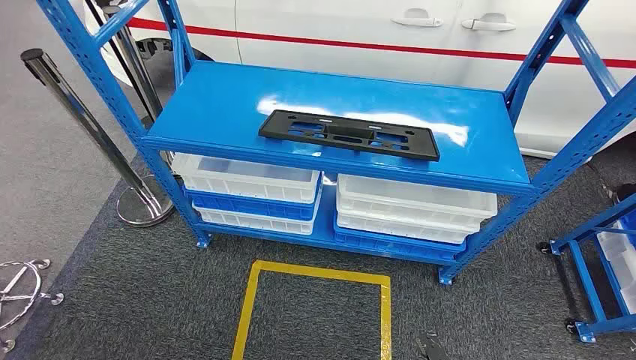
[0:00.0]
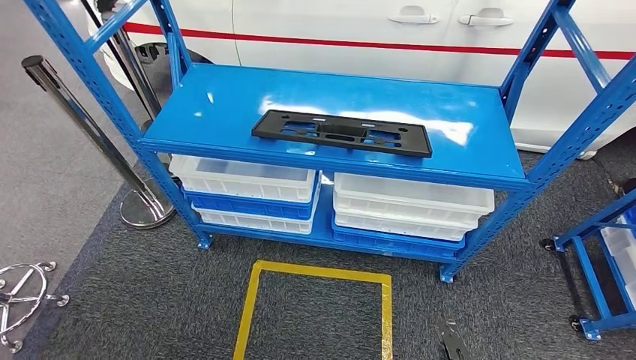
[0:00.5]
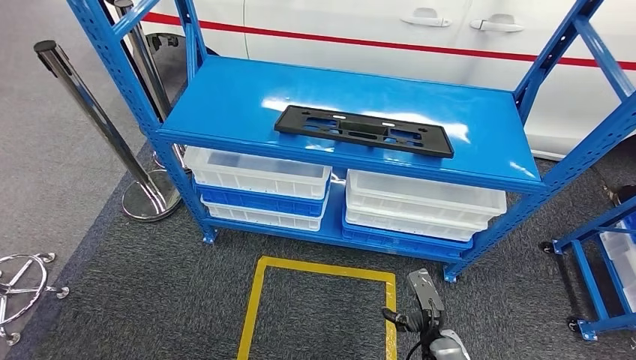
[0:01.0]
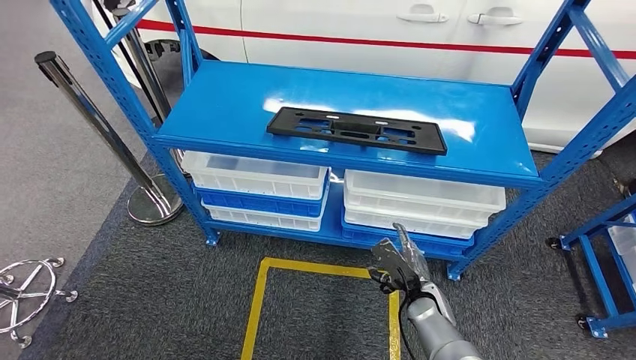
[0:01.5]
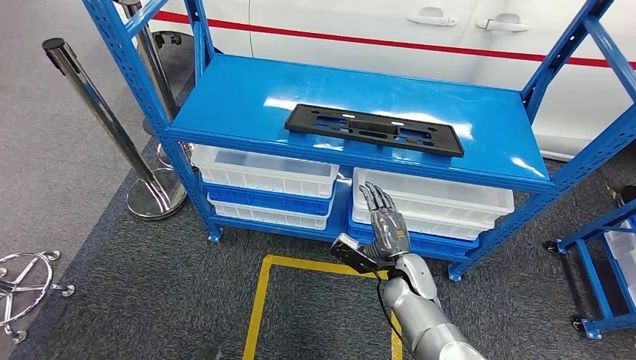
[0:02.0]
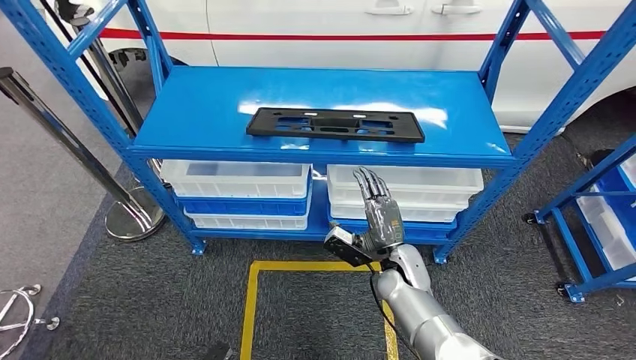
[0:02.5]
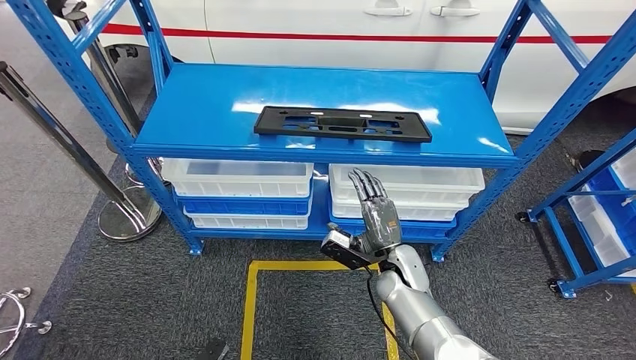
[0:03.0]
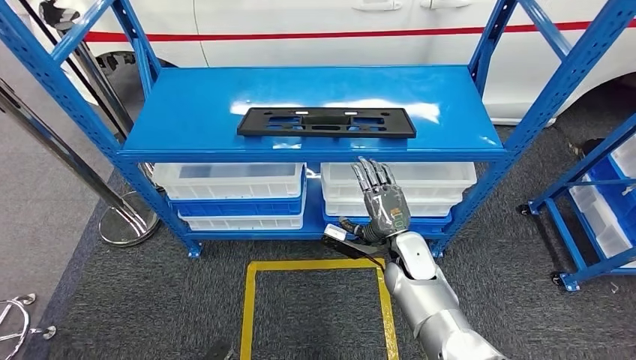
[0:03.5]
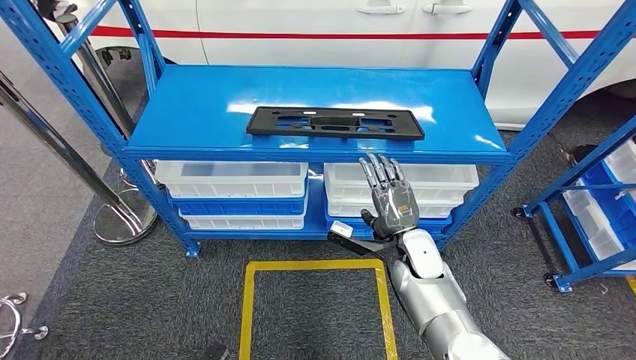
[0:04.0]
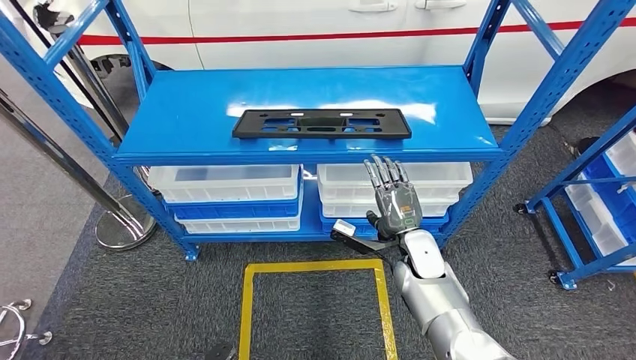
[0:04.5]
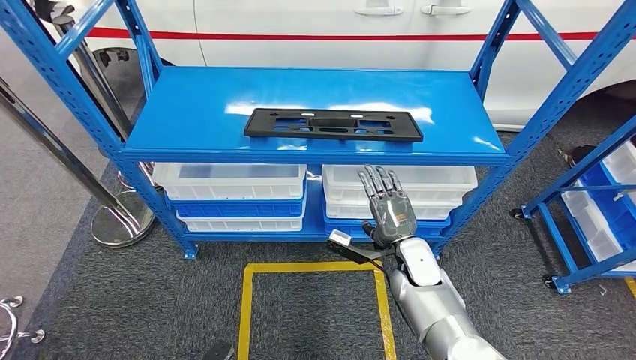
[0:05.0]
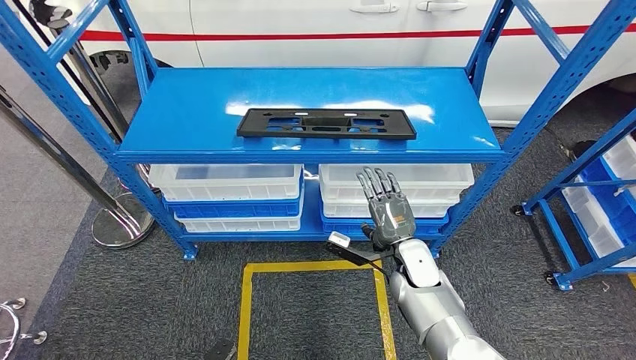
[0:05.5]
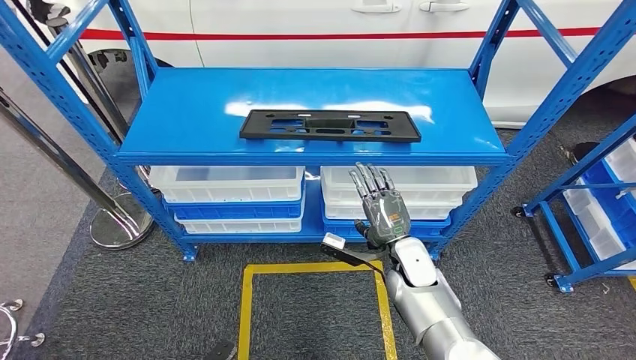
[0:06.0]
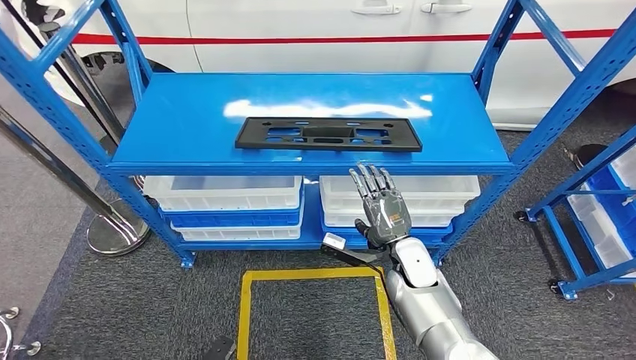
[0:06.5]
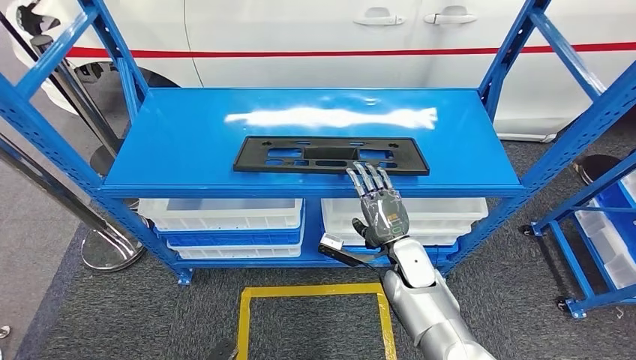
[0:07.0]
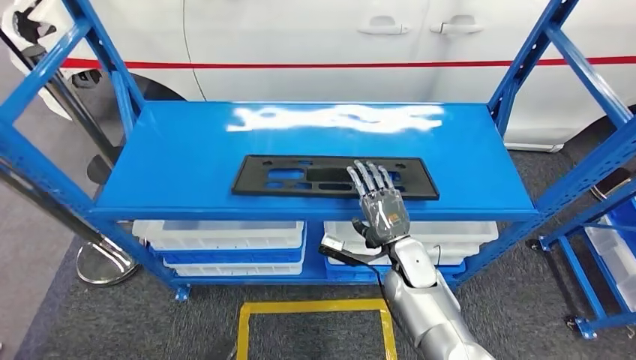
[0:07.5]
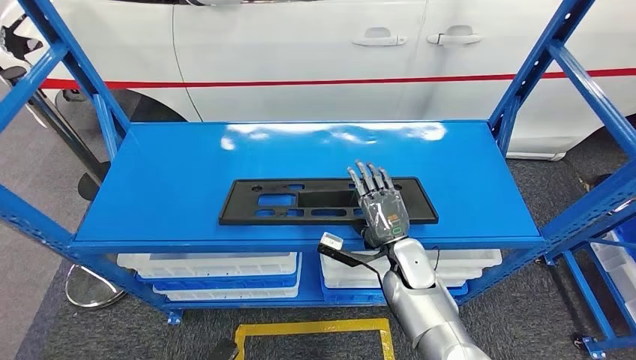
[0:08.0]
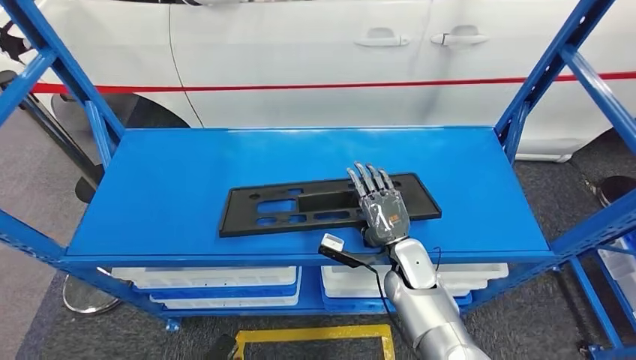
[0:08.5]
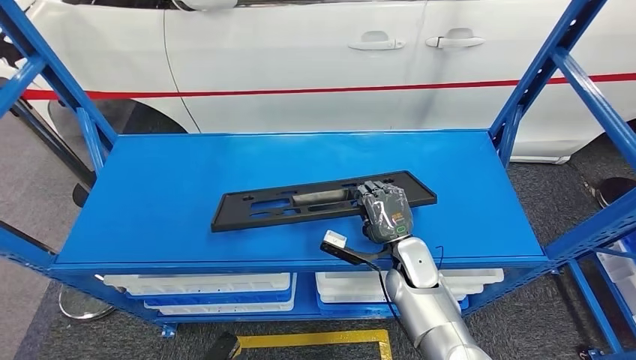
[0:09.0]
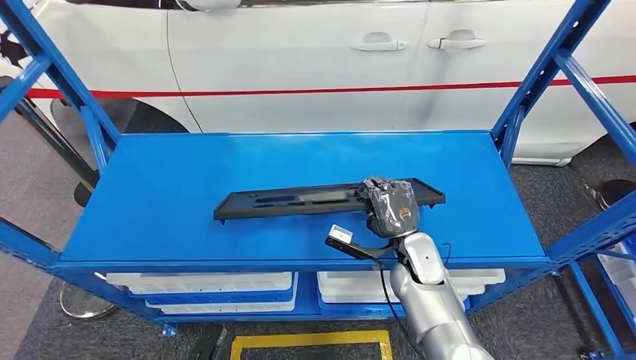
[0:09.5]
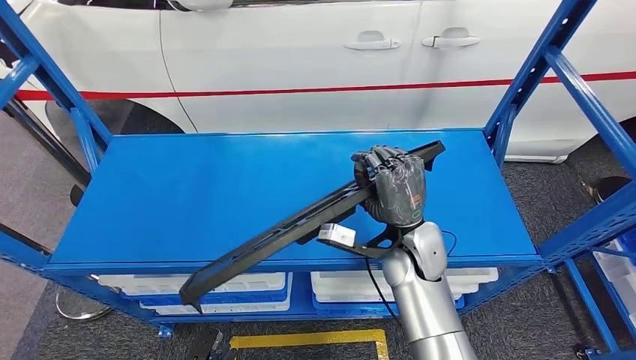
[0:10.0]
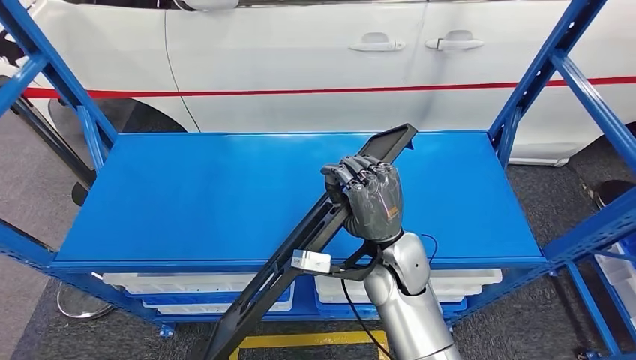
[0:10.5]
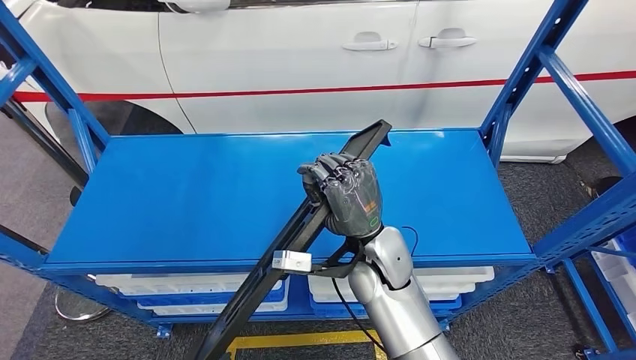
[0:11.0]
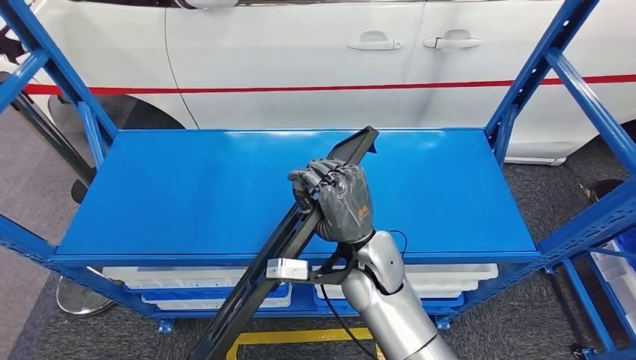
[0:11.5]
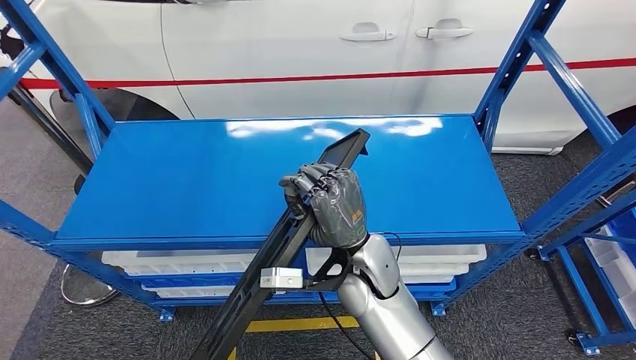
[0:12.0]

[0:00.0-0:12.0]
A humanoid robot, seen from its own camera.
Step, 0:00.0 to 0:10.0: Pick up the large material from the shelf.

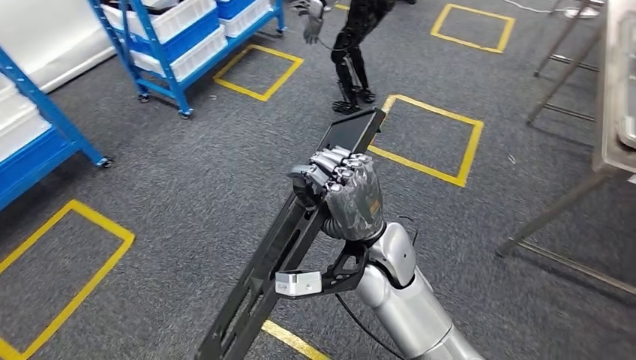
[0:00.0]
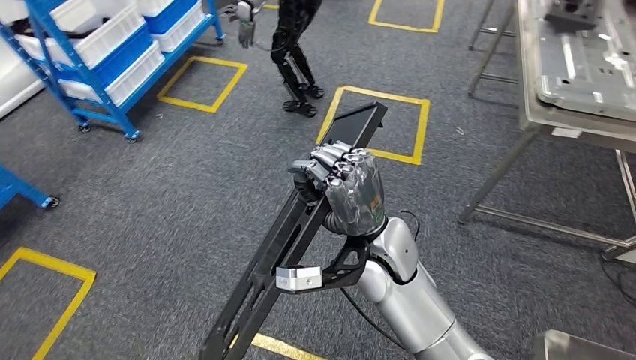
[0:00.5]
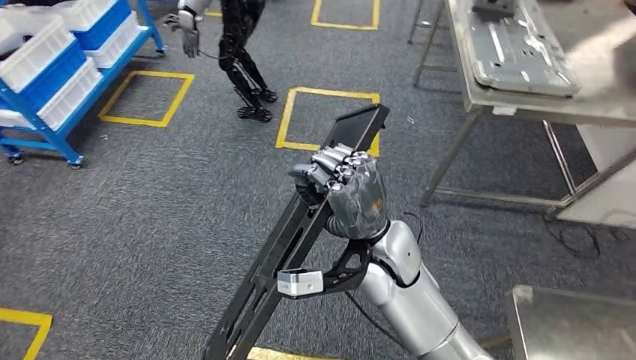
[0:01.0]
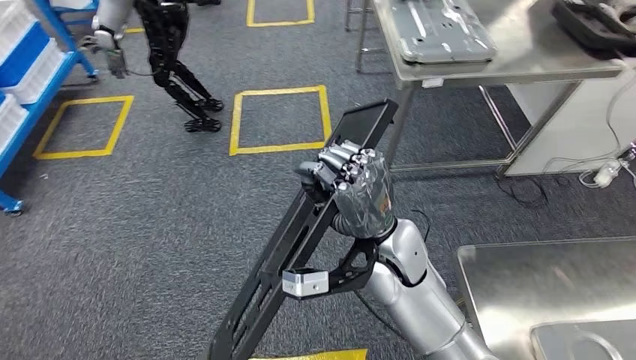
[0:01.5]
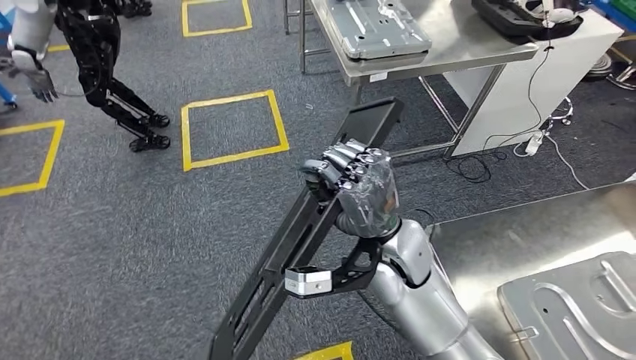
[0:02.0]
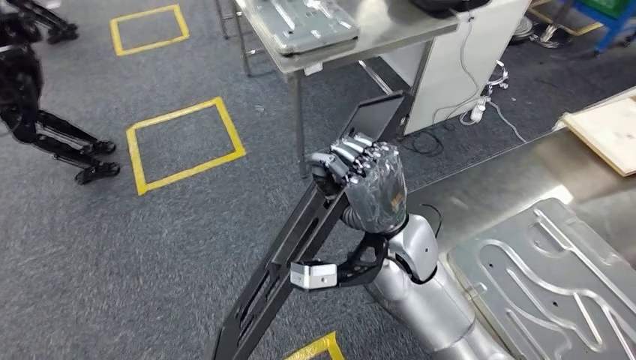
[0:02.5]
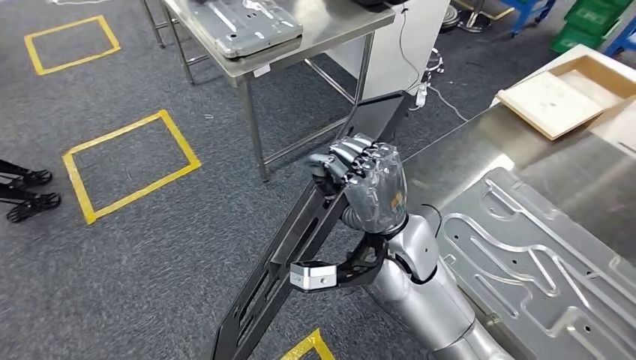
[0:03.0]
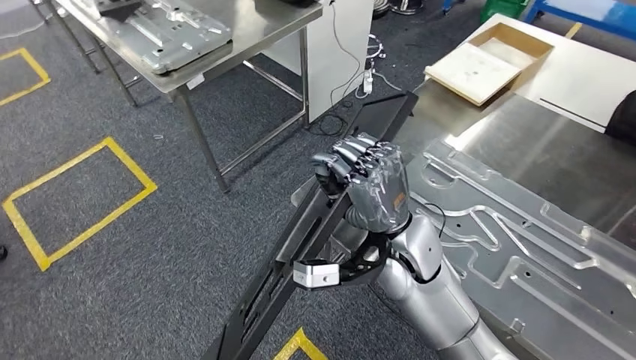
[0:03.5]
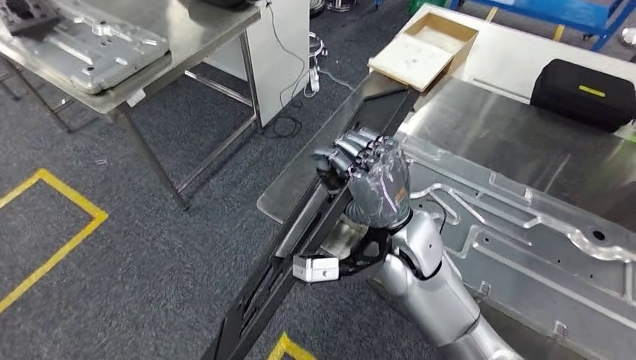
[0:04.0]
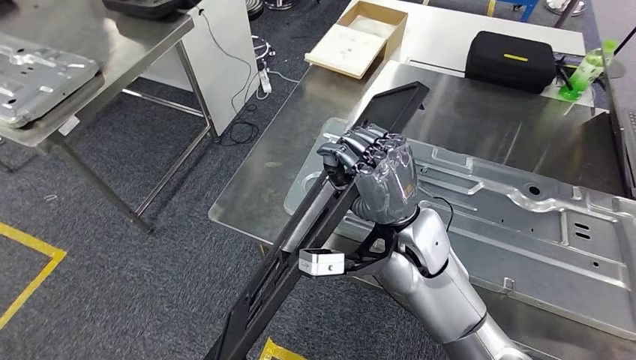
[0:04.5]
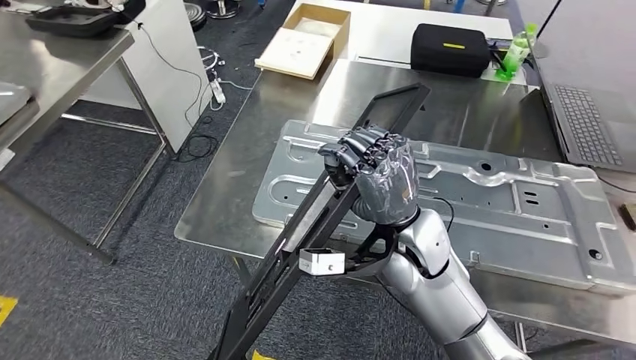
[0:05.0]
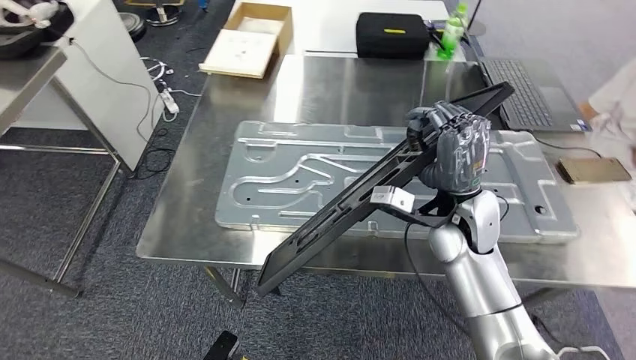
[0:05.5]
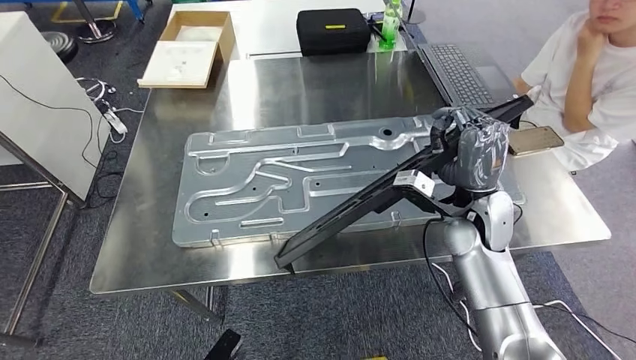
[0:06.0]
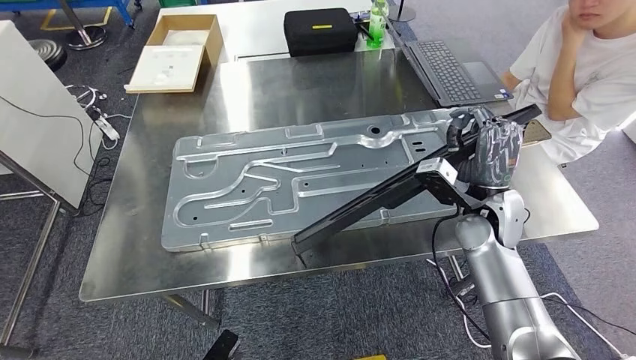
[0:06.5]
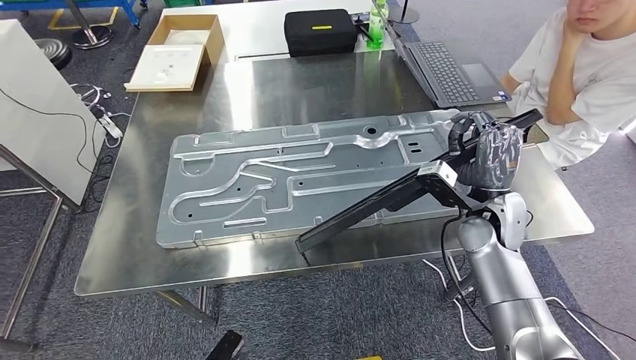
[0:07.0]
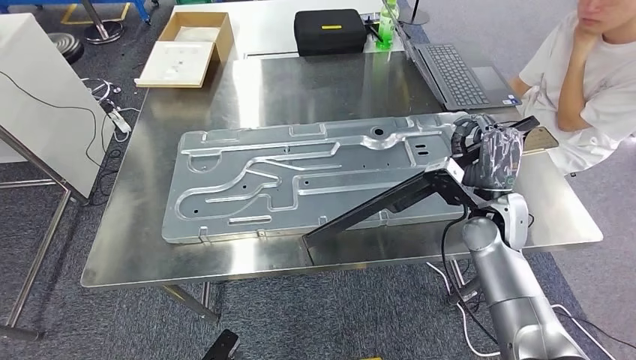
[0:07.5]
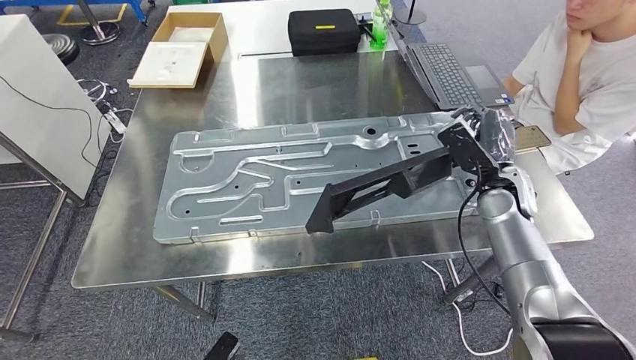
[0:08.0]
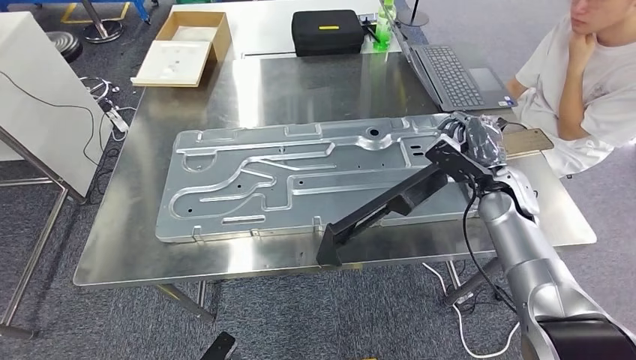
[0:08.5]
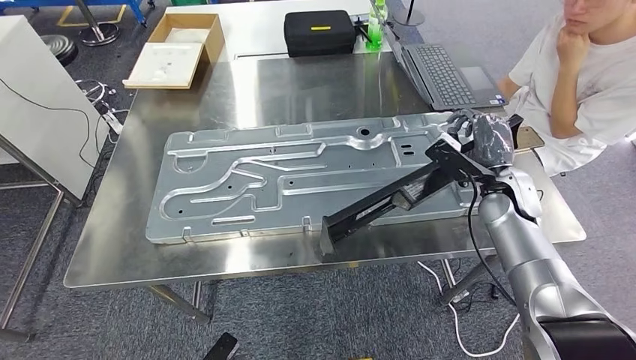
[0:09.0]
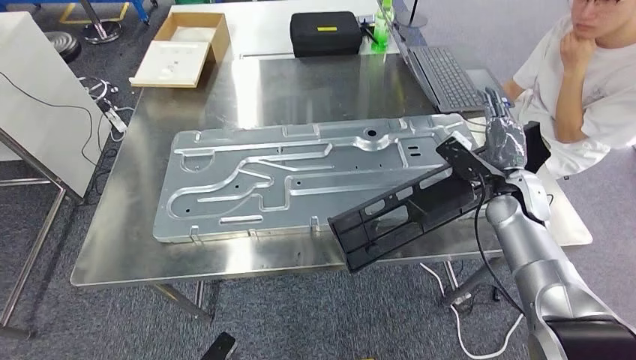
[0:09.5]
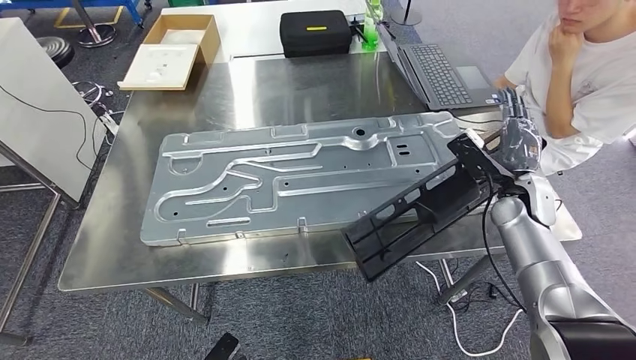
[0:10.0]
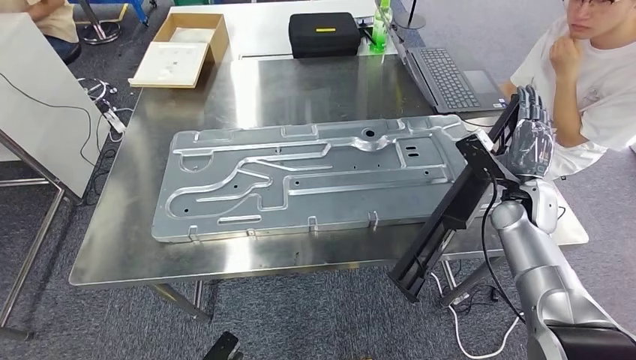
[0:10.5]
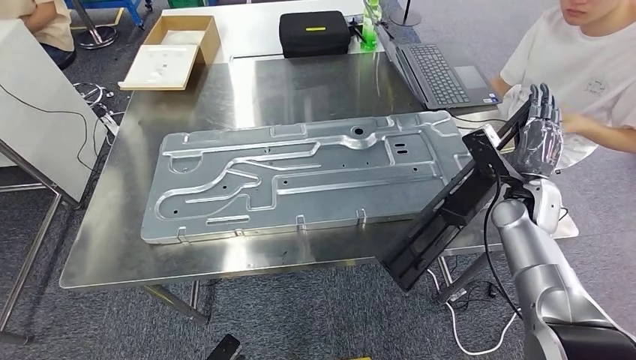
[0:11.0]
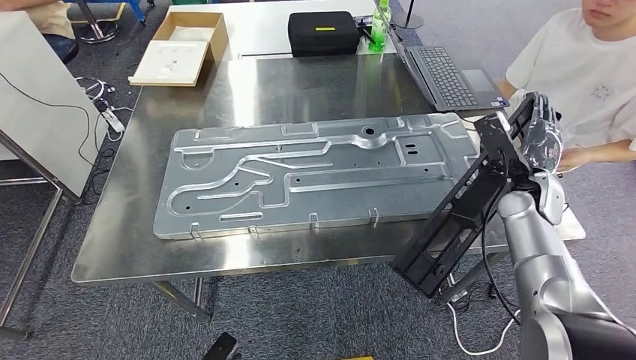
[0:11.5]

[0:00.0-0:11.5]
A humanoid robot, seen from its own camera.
Step, 0:00.0 to 0:03.0: Move the large material to the workbench.
